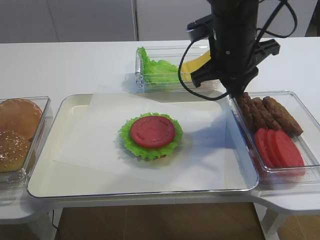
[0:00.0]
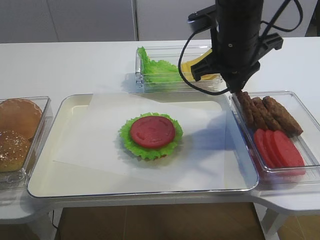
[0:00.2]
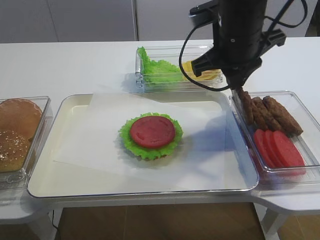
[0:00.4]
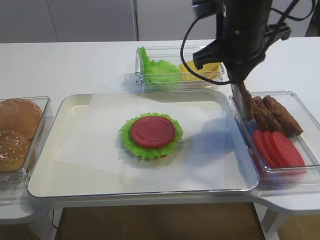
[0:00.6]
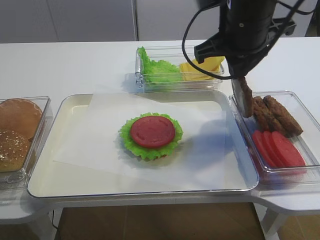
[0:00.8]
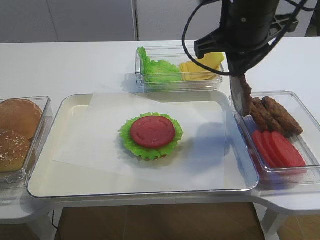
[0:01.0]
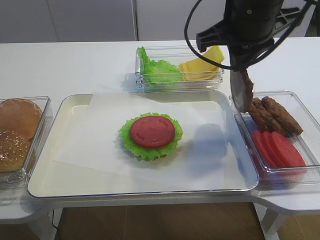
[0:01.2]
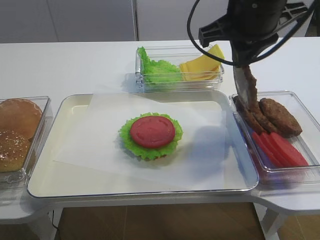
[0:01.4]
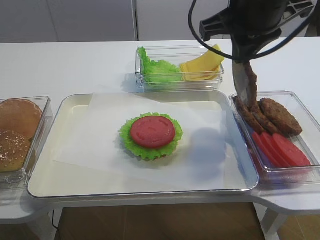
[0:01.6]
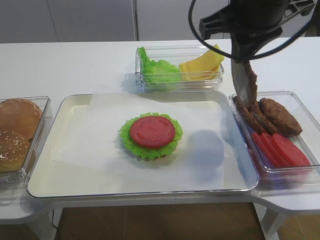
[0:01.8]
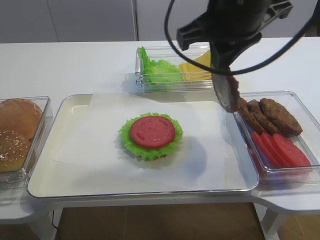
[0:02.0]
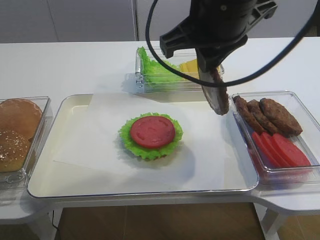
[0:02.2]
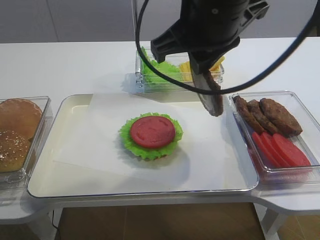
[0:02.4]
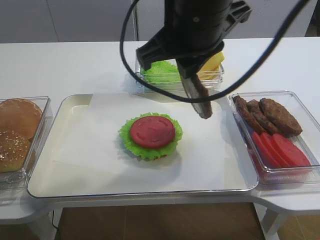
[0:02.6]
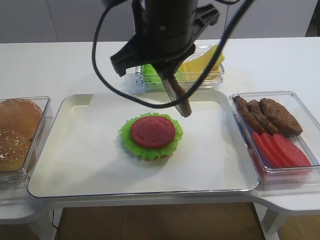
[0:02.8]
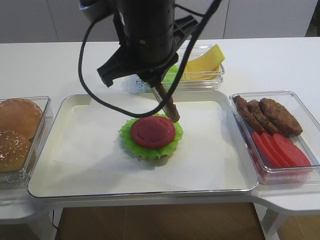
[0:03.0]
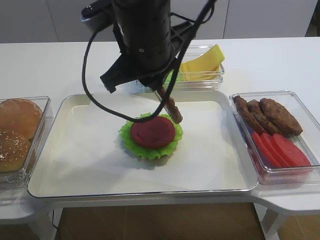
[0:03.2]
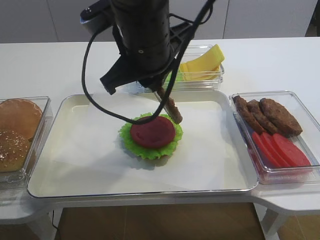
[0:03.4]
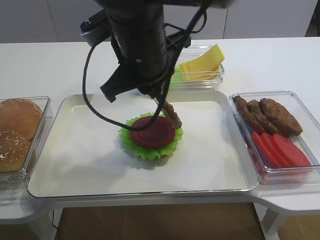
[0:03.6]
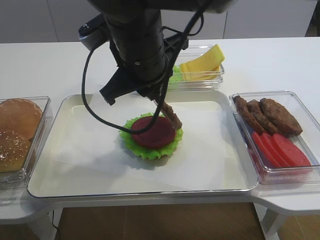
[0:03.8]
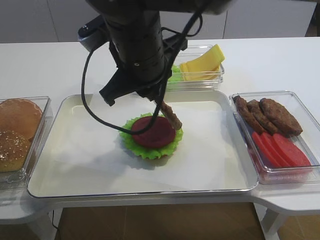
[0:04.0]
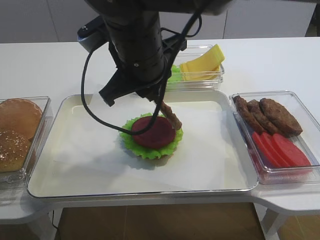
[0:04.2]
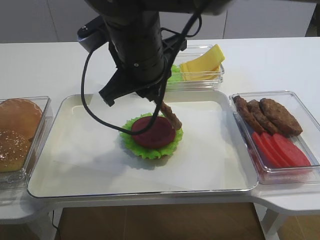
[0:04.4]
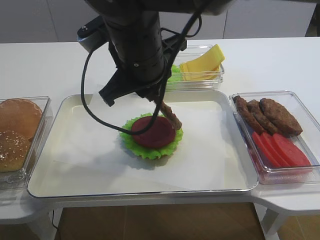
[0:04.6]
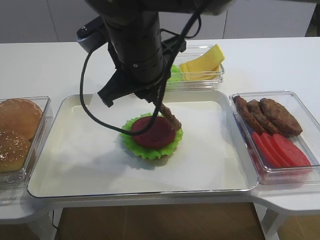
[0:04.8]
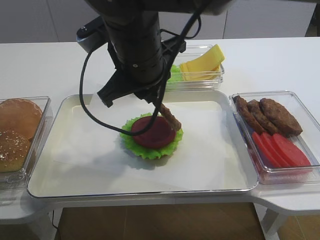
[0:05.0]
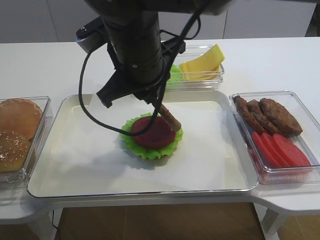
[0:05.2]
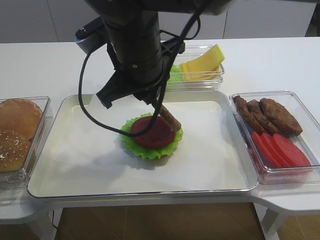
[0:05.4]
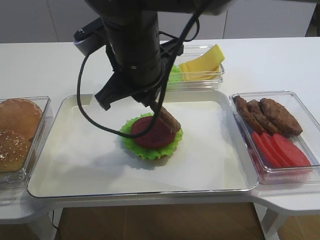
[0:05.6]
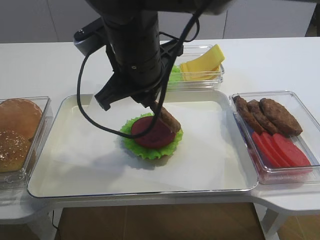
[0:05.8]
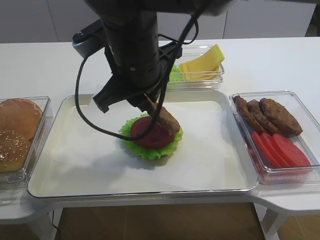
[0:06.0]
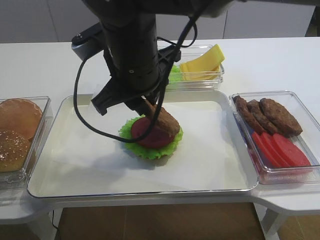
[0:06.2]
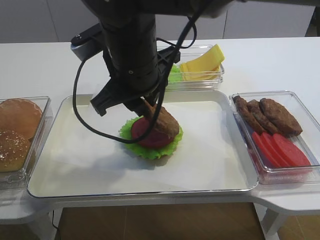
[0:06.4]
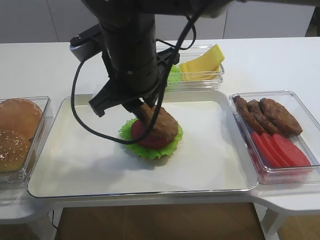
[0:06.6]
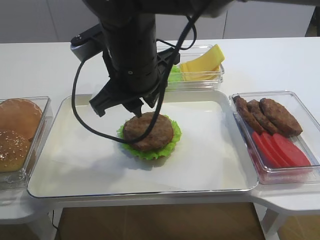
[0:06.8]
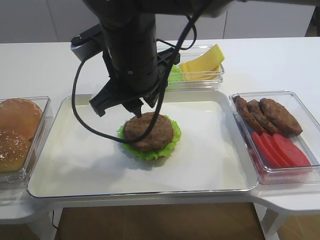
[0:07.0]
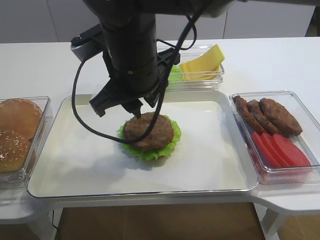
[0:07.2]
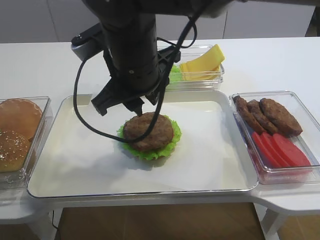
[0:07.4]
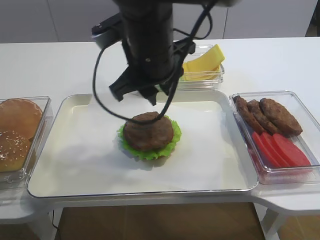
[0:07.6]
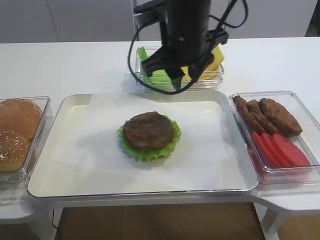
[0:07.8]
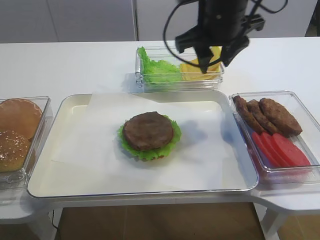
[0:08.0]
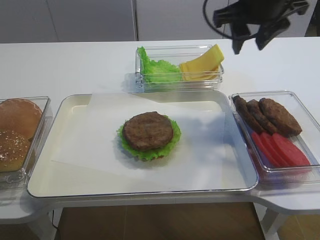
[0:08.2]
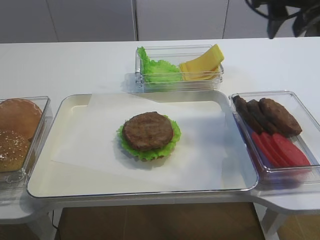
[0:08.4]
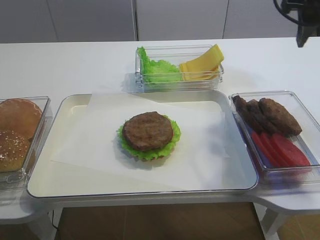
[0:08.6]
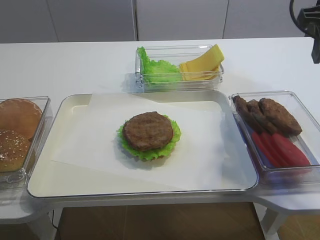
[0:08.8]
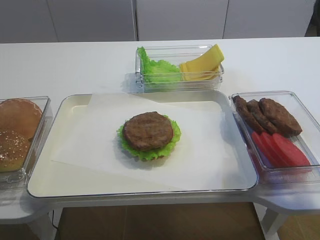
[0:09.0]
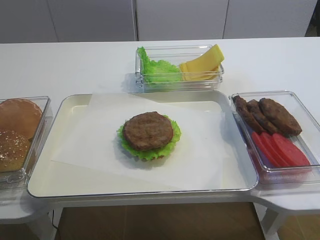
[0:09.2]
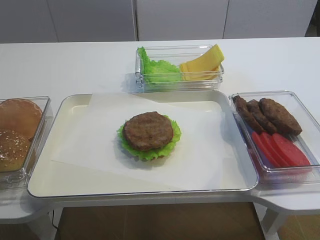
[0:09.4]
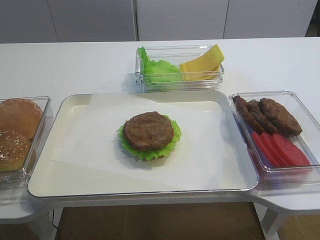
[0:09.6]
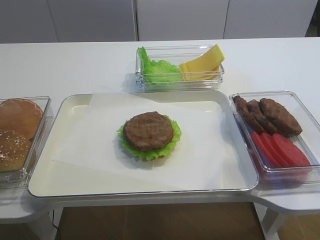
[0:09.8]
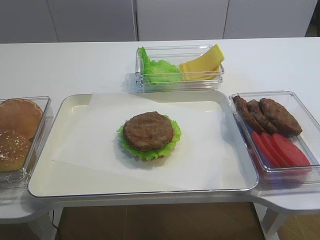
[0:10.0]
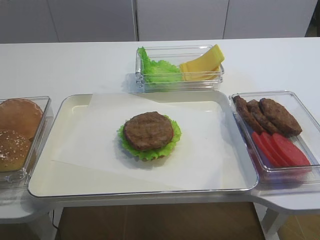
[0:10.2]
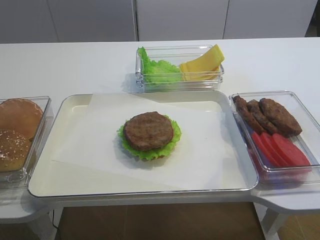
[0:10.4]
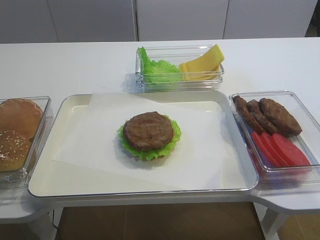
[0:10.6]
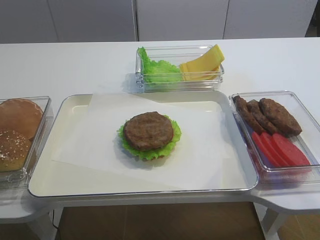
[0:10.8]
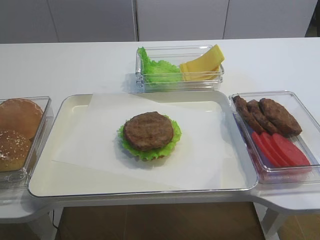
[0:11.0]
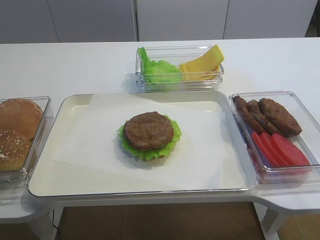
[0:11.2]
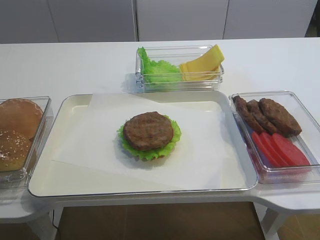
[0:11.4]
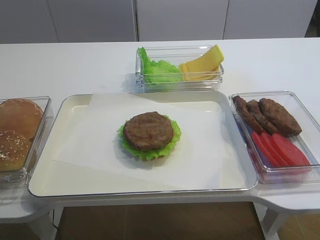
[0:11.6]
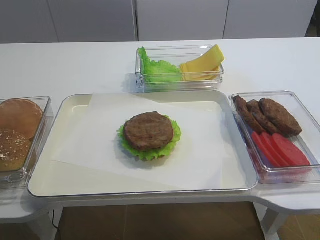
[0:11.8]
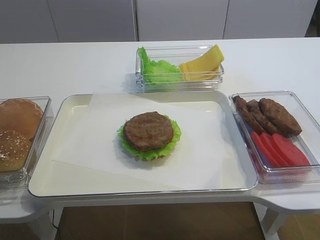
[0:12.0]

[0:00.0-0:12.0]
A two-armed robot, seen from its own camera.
Step, 0:00.6 to 0:06.6: Place the cutlet on the tomato slice with the right gripper.
0:00.0 to 0:01.6: The right gripper is displaced upward by some 10 cm.
0:01.6 to 0:03.0: The right gripper is displaced to the left by roughly 15 cm.
0:03.0 to 0:04.4: The grippers move only a little.
0:04.4 to 0:06.0: Both grippers stay about where they are.
0:06.0 to 0:07.6: There are only small adjustments of the grippers.
0:07.6 to 0:09.0: The right gripper travels to the right by about 25 cm.
0:09.0 to 0:10.4: The right gripper travels backward by about 25 cm.
0:10.4 to 0:12.0: The right gripper shifts approximately 5 cm downward.

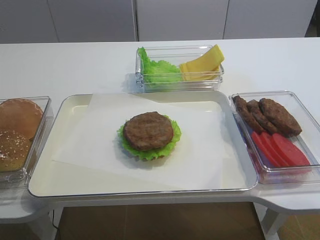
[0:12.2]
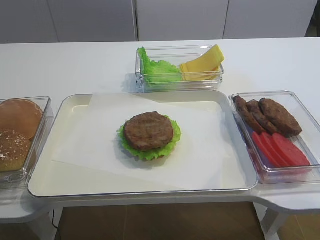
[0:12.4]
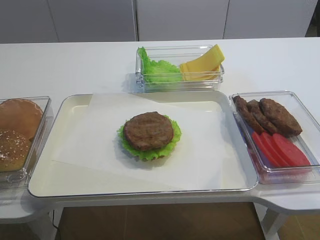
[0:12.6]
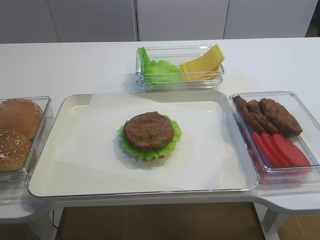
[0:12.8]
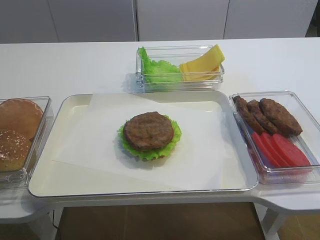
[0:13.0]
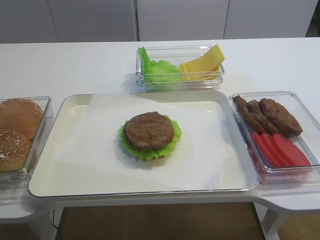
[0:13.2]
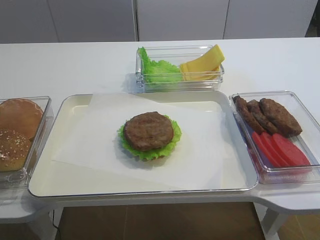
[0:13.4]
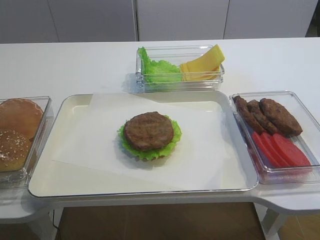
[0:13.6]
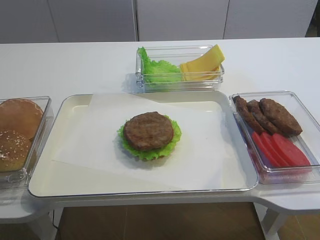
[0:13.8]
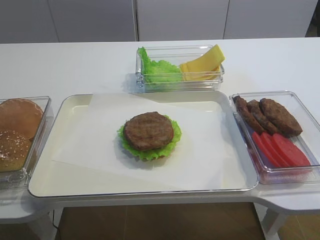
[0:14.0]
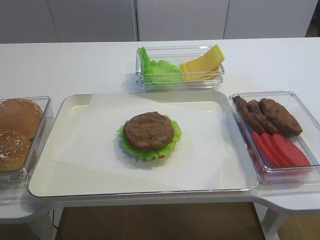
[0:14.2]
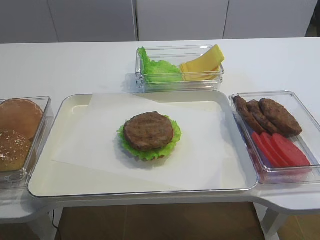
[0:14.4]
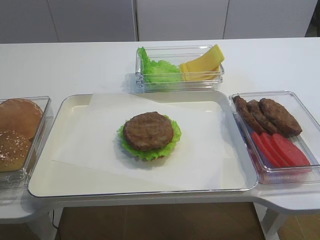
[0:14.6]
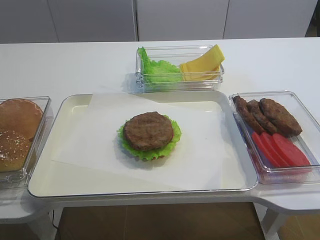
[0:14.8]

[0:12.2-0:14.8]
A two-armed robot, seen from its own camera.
0:13.4 to 0:14.8: Both grippers stay about where they are.

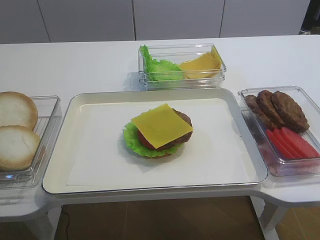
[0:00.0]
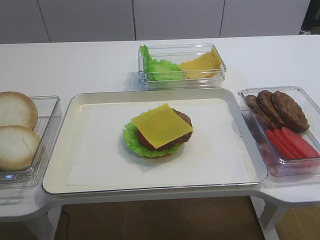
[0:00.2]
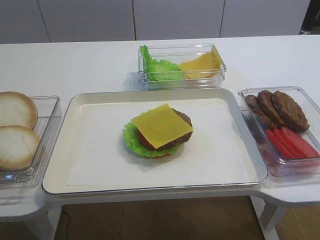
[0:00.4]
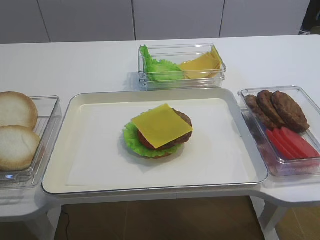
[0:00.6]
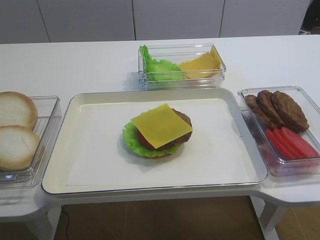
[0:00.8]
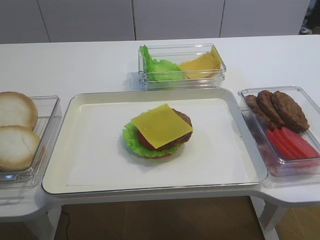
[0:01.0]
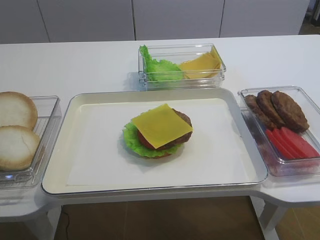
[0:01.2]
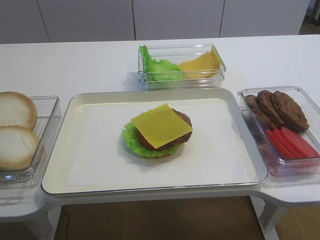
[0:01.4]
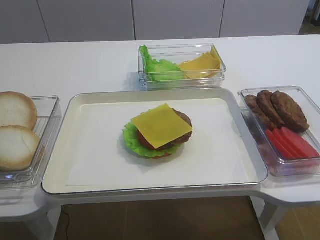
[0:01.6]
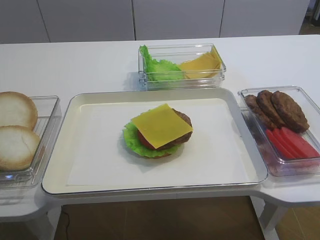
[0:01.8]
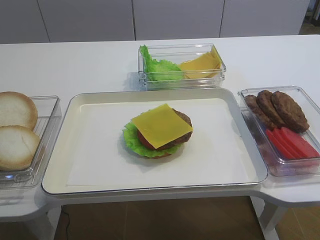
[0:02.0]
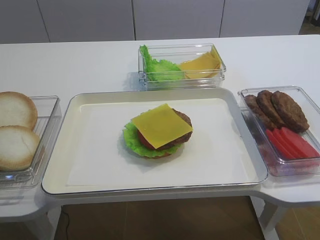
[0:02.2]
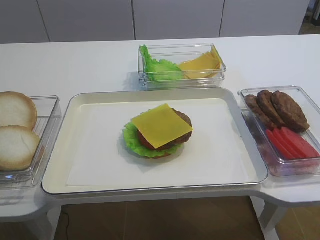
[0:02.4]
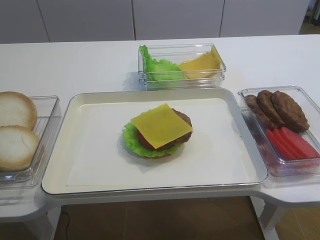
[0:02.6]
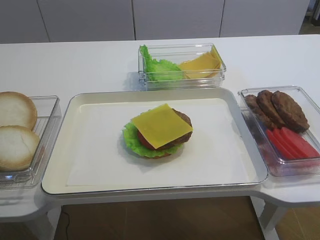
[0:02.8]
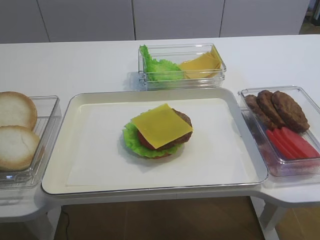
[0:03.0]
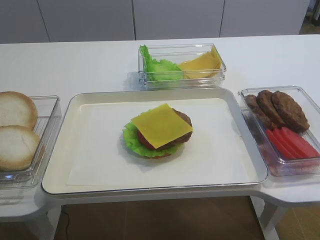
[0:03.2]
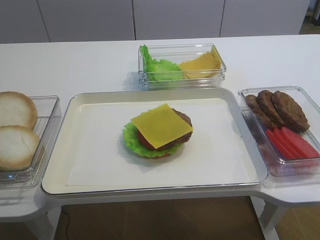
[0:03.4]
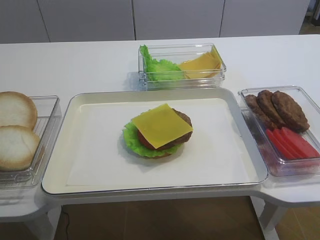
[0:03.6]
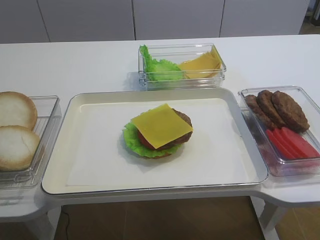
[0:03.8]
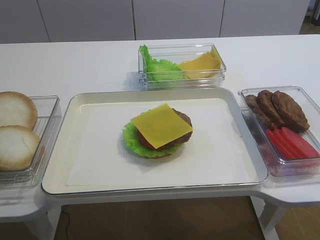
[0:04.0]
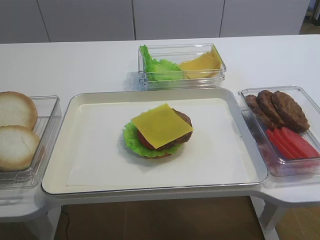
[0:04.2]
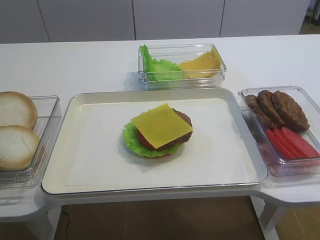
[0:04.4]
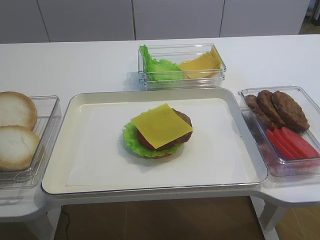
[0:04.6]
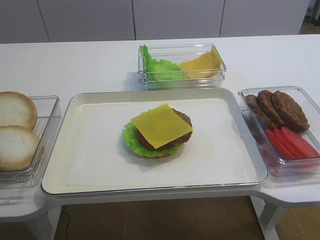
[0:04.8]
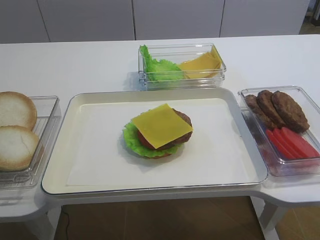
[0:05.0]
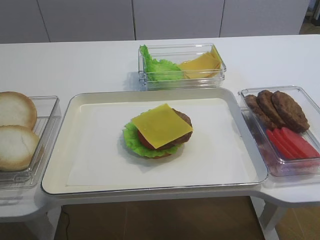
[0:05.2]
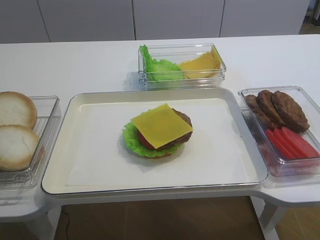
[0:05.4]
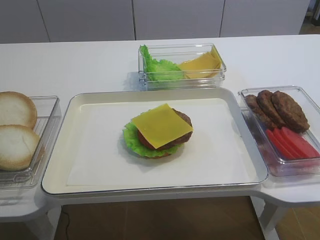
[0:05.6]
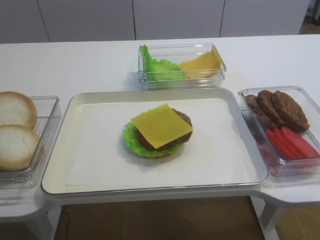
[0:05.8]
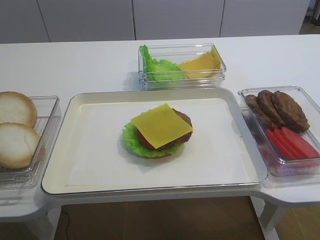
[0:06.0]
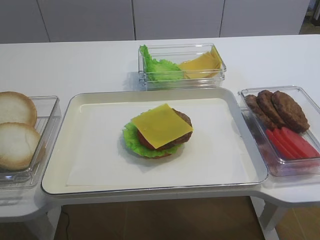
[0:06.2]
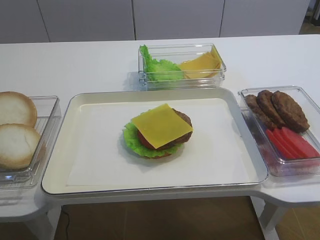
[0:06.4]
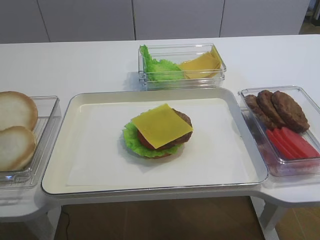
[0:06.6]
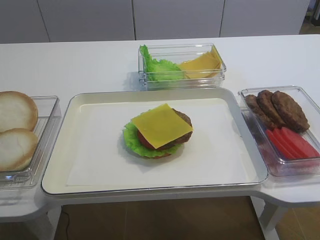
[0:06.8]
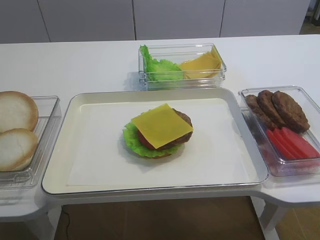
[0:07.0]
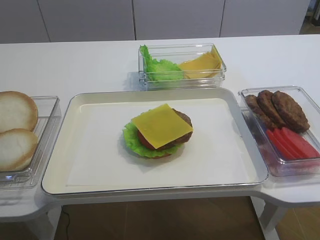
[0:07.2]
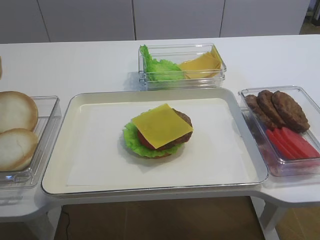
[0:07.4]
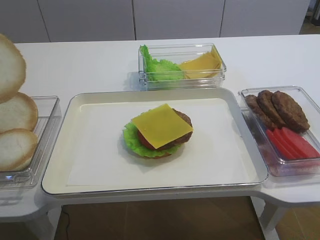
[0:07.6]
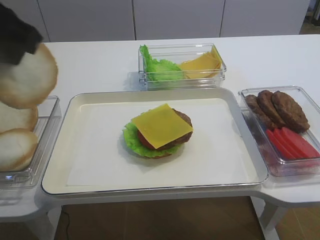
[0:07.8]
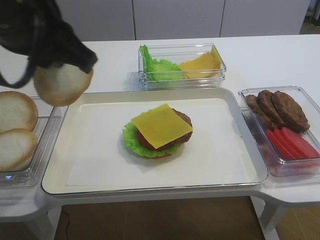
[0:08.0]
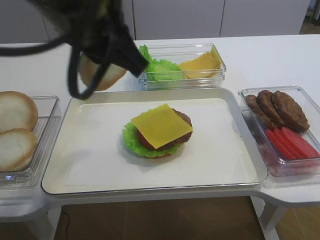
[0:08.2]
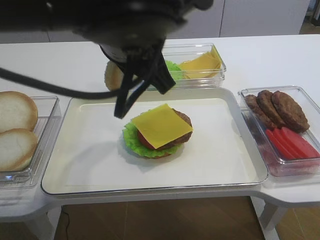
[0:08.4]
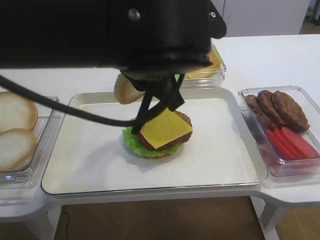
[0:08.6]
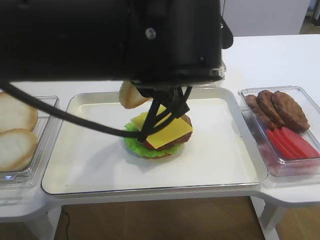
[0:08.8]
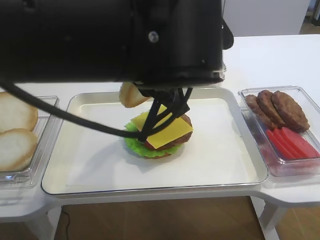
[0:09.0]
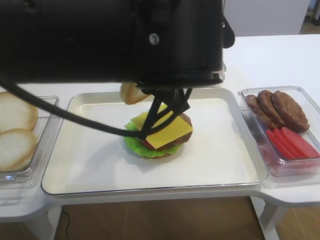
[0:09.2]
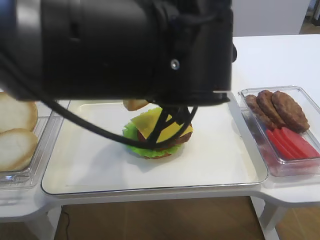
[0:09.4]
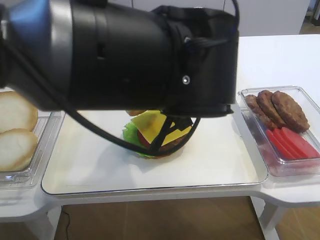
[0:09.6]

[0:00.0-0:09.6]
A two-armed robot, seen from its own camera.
Step, 0:00.0 to 0:07.2: Pick up the hamburger lid with the left gripper.
0:06.4 to 0:08.0: The left gripper heads to the right and upward, covering some 20 cm.
0:08.0 to 0:09.6: The left gripper goes roughly 15 cm to the right and downward.
